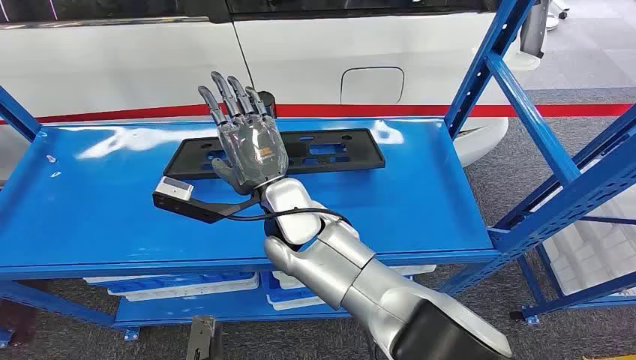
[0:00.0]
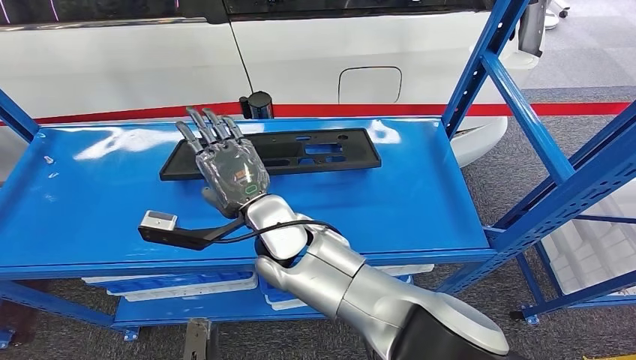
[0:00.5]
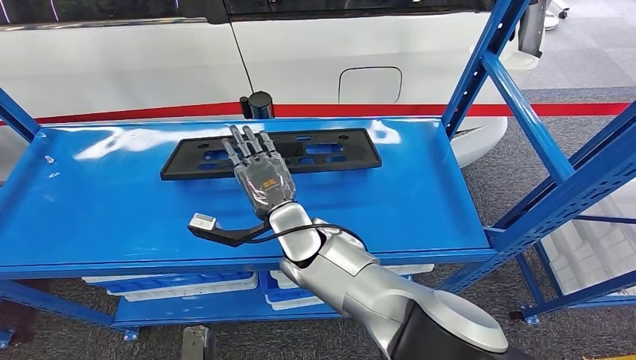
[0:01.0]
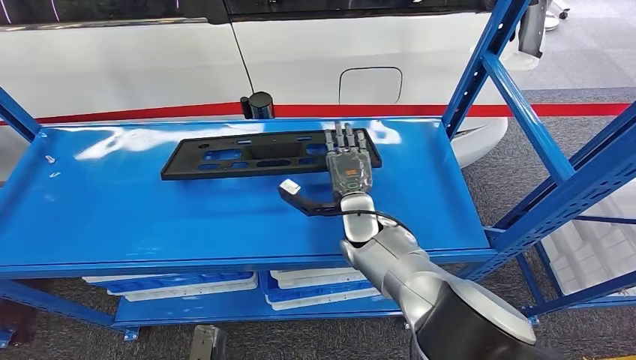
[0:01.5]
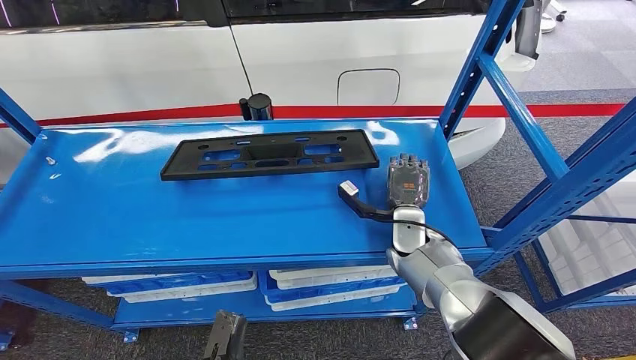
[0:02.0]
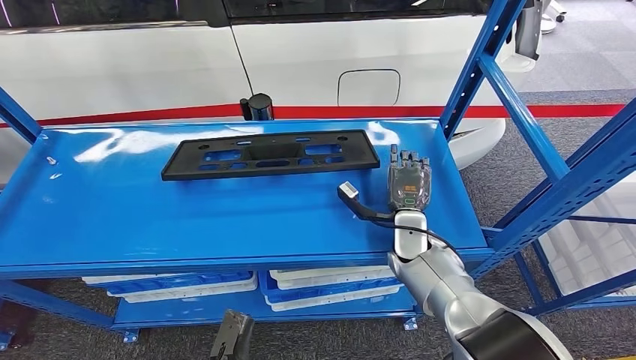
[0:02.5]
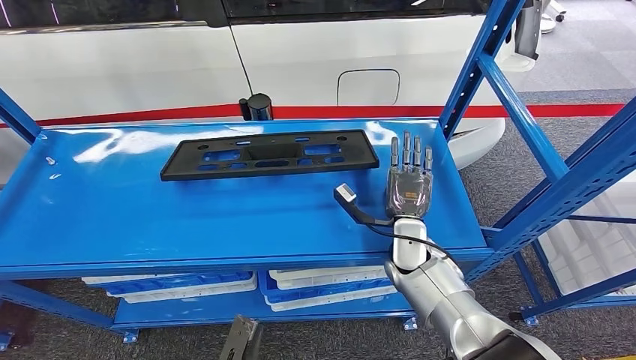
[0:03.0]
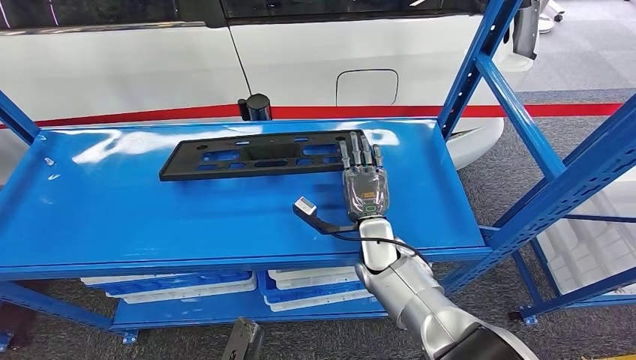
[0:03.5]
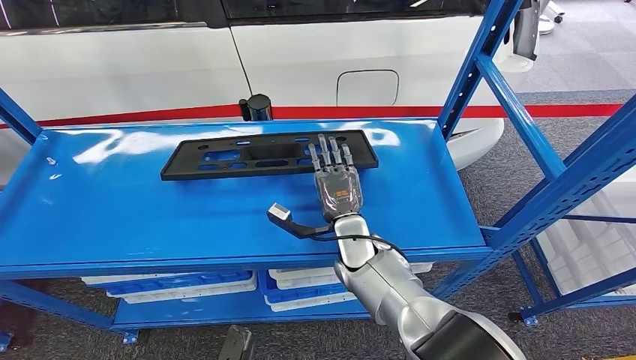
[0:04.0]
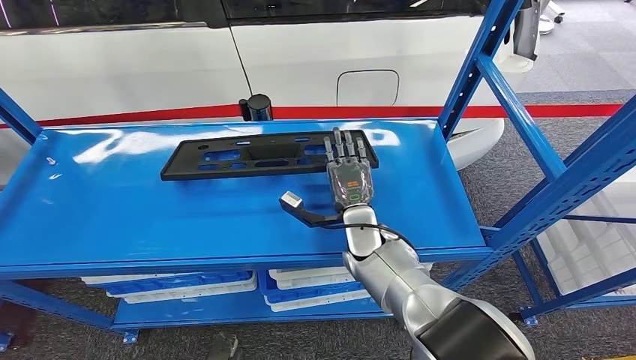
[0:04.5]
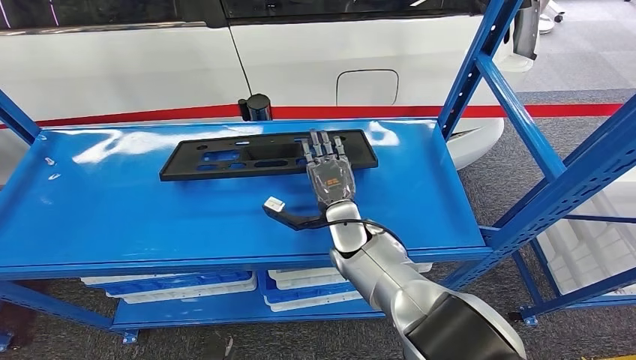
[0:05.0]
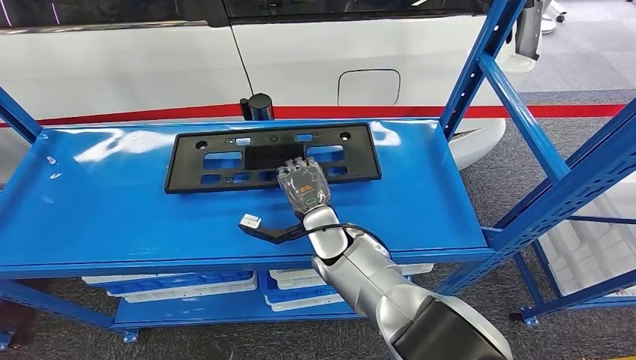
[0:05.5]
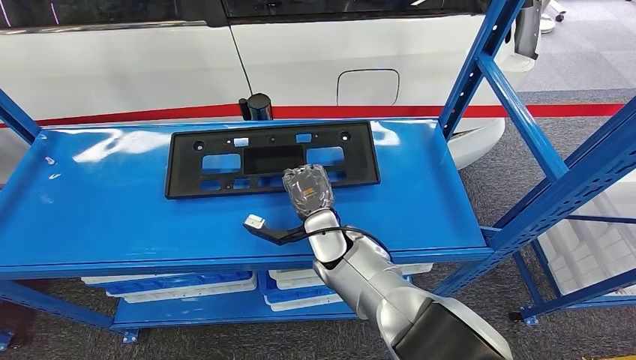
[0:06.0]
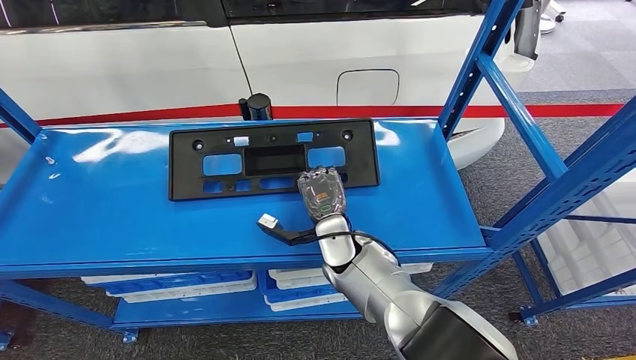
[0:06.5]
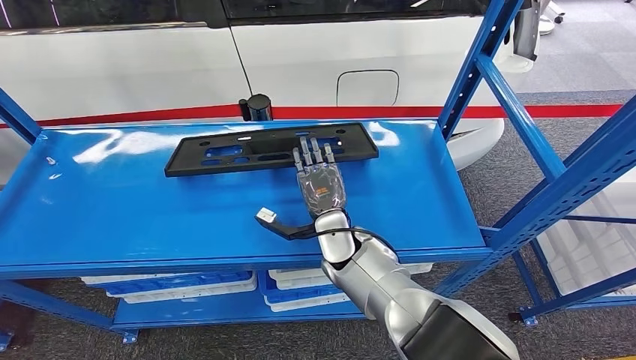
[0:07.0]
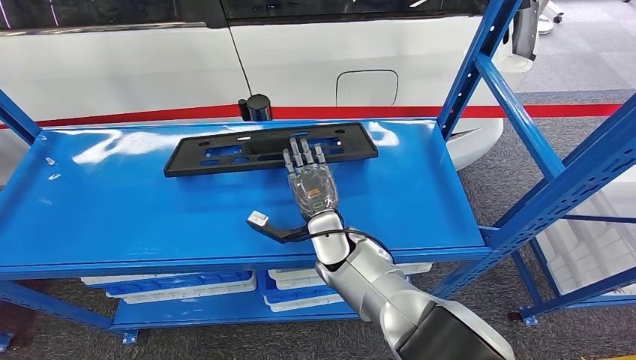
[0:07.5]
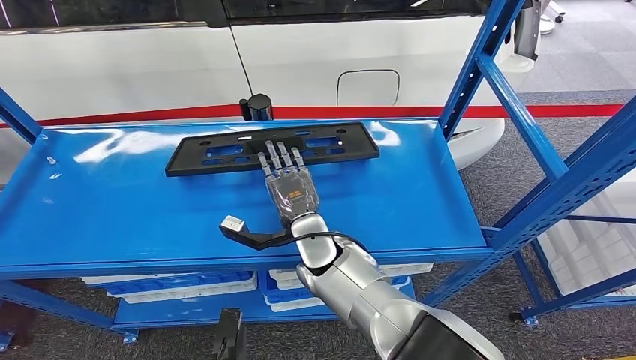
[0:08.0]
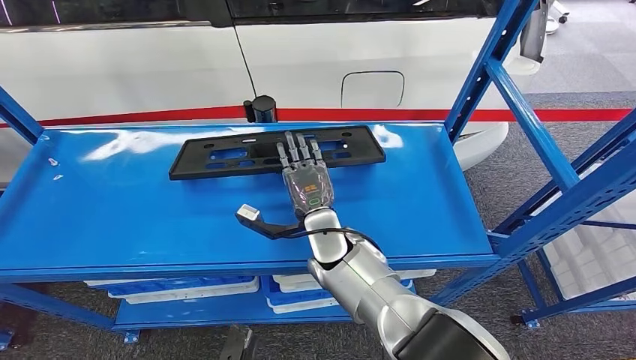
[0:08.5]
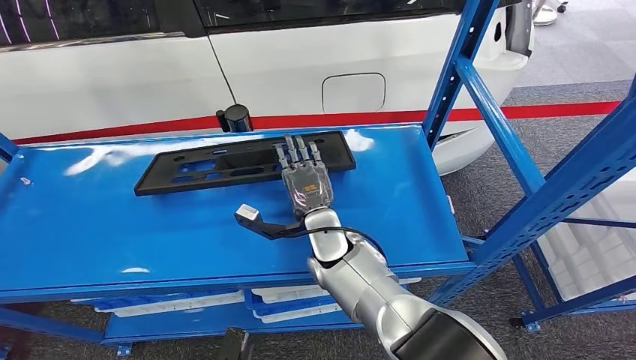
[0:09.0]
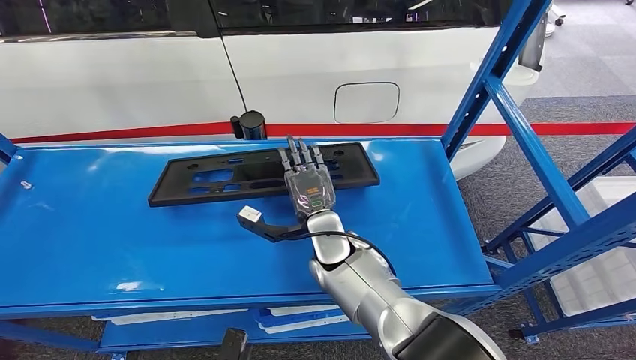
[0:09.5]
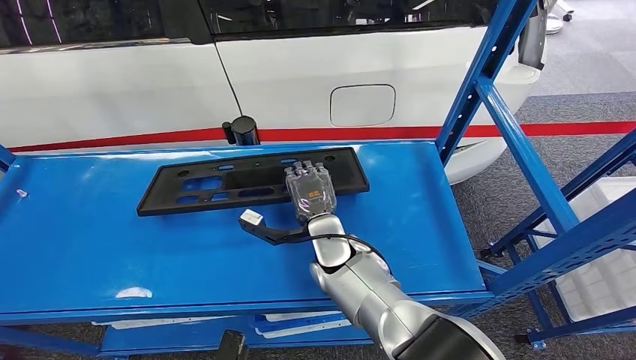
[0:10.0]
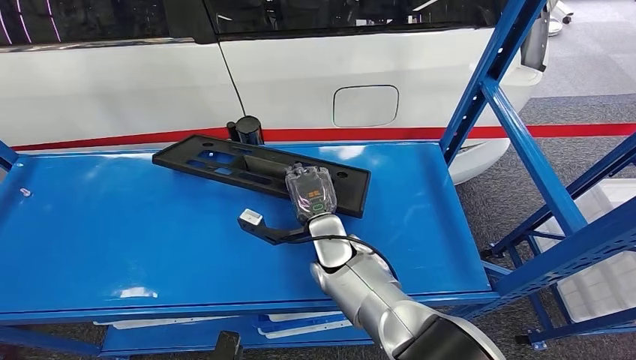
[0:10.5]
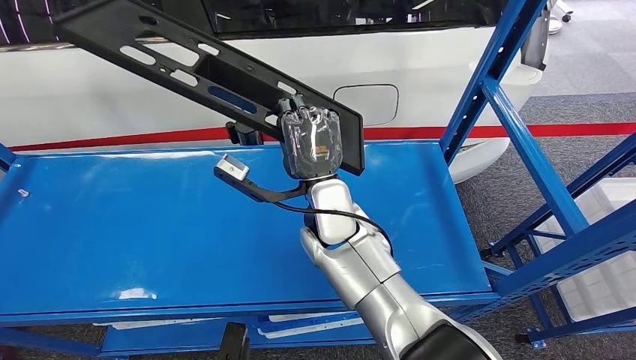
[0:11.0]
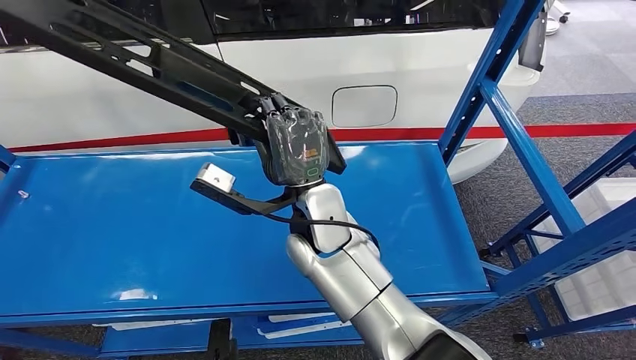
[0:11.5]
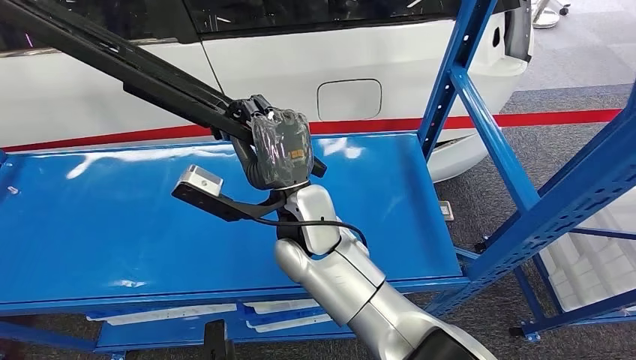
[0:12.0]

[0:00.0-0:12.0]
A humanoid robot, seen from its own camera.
Step, 0:00.0 to 0:11.0: Pick up the large material from the shelf.
0:02.0 to 0:04.0: The right hand moves to the left, approximately 10 cm.
0:04.0 to 0:06.0: The left hand shifts by approximately 5 cm.
0:06.0 to 0:08.0: The left hand travels forward by about 10 cm.

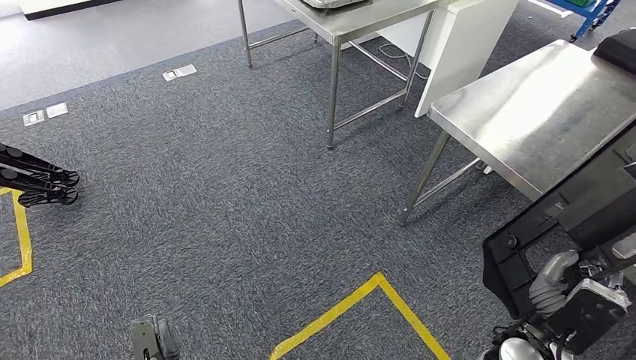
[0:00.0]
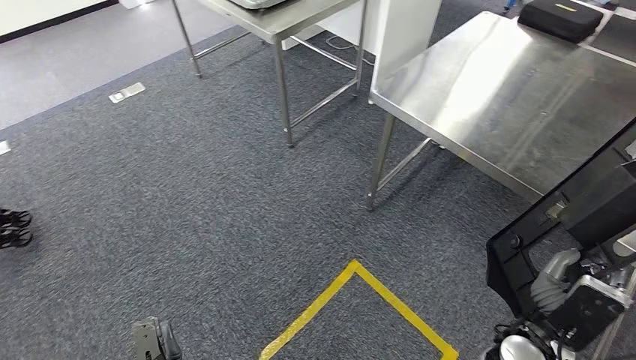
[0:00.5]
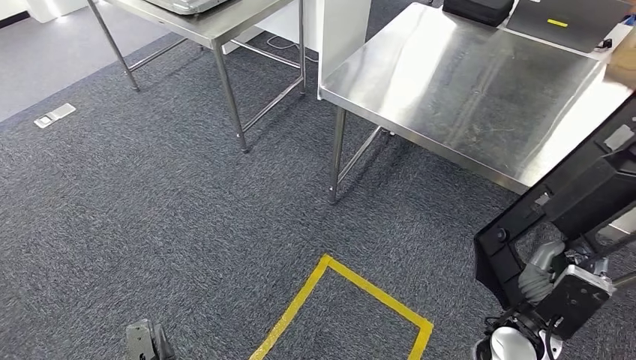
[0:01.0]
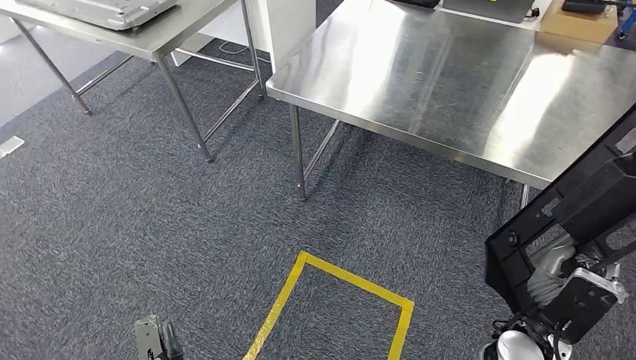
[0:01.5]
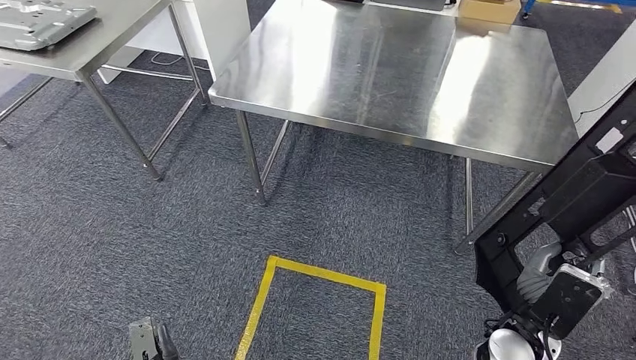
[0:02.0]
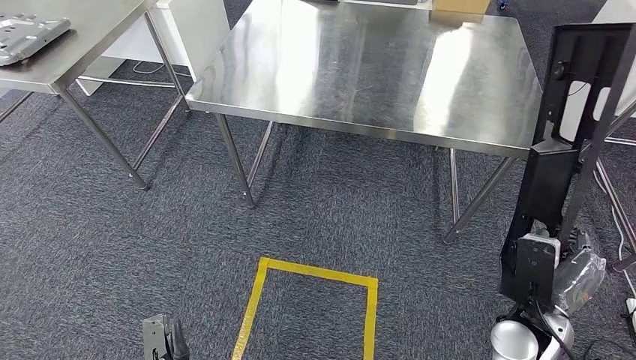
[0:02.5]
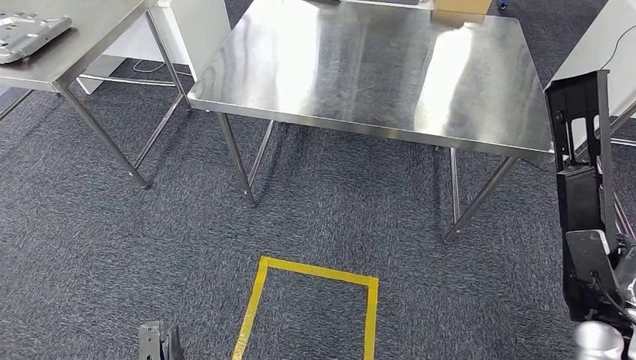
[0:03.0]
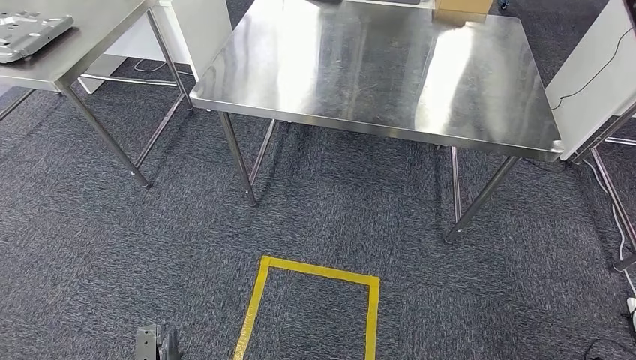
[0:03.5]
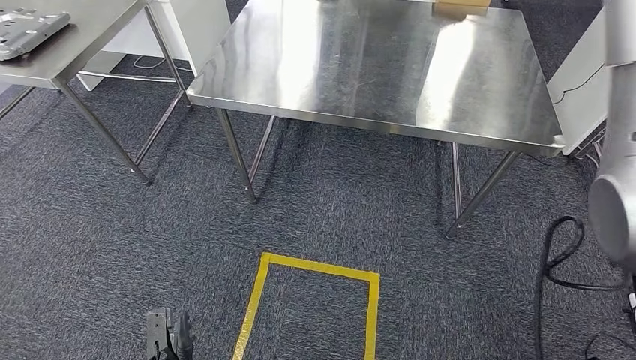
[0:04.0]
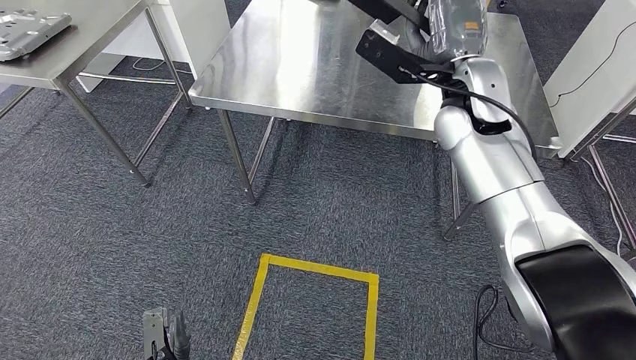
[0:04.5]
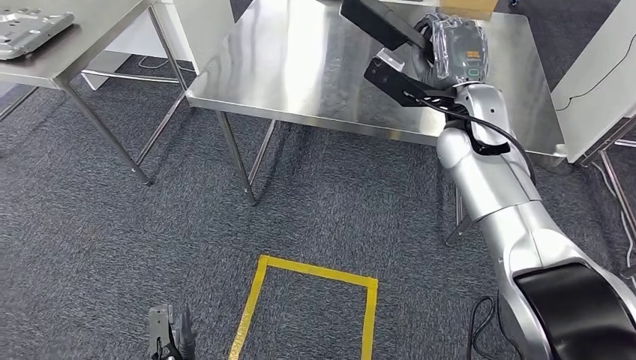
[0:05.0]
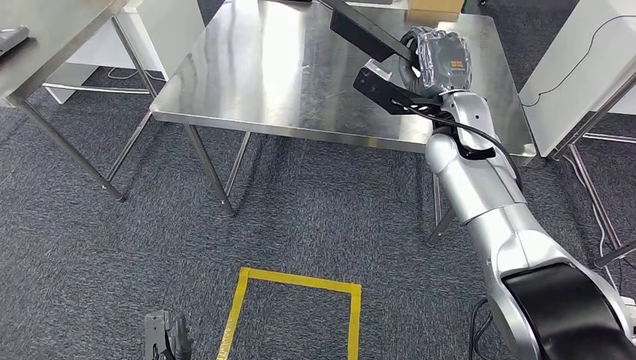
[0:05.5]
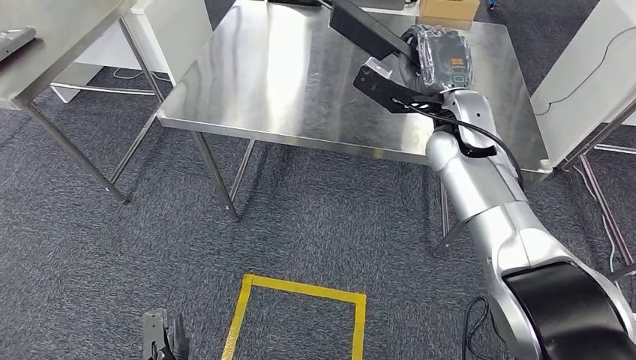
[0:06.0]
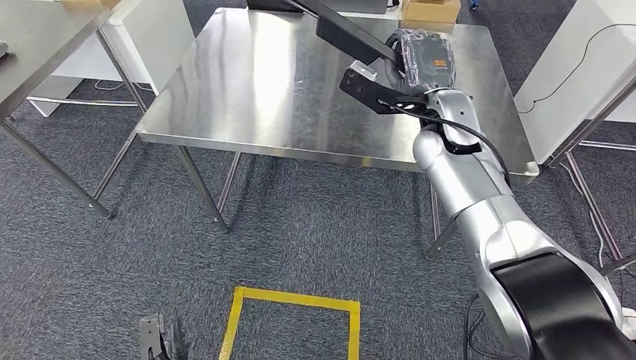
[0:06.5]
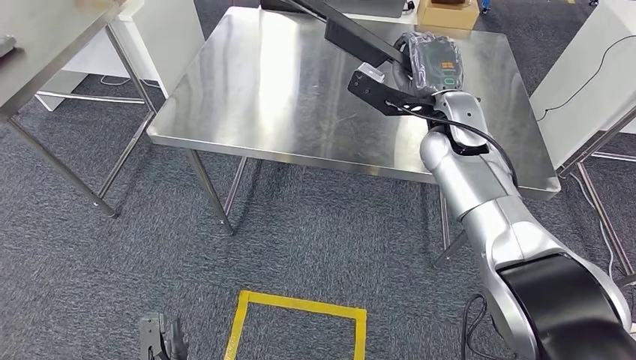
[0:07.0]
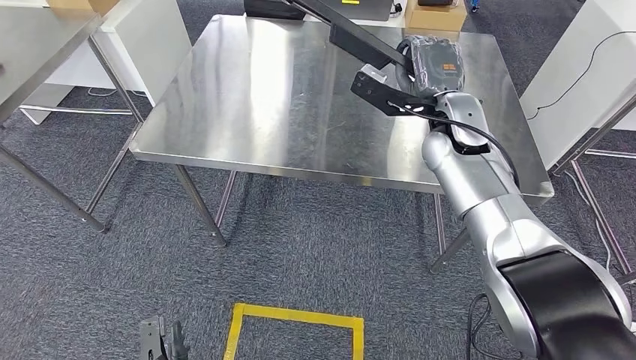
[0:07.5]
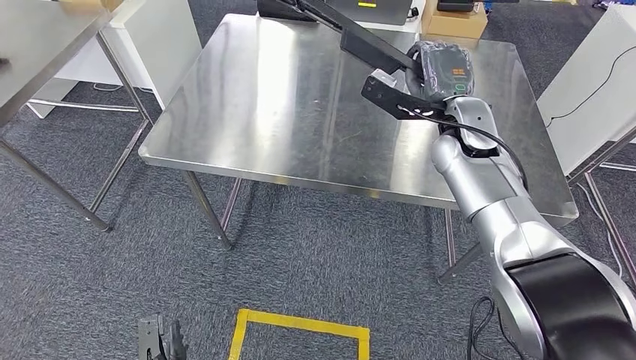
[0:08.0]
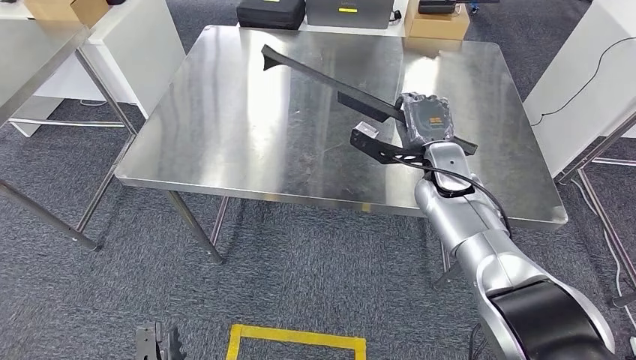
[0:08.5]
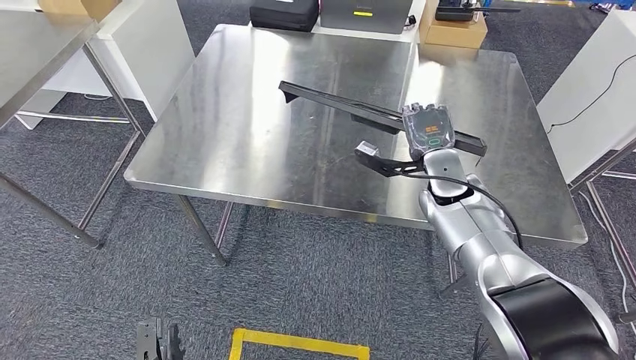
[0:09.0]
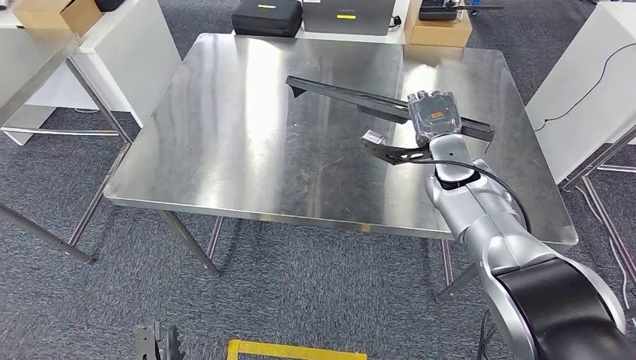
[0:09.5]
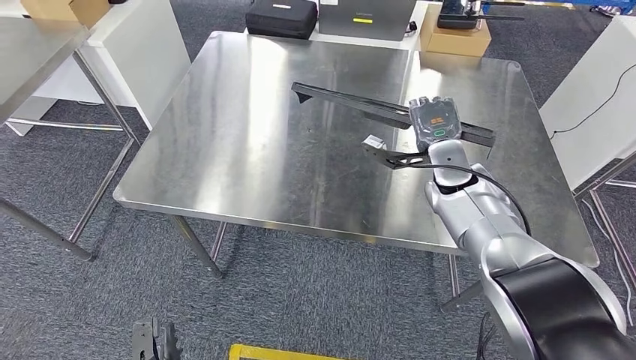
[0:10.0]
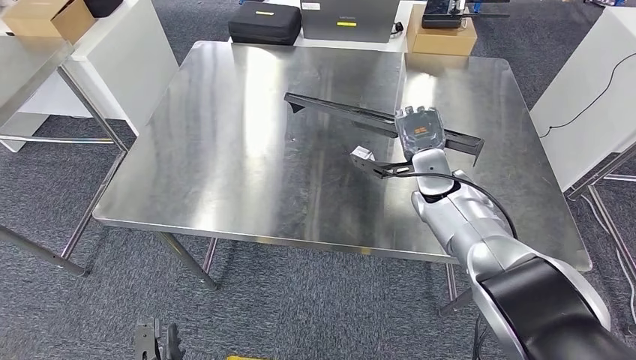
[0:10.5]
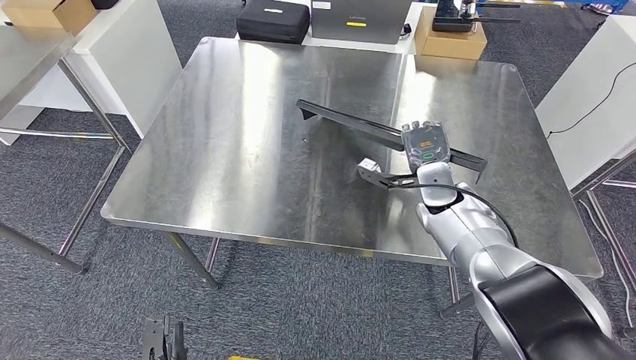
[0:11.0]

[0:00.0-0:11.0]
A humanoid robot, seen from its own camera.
Step, 0:00.0 to 0:03.5: Move the large material to the workbench.
